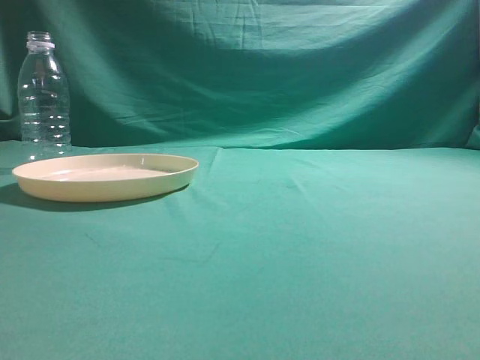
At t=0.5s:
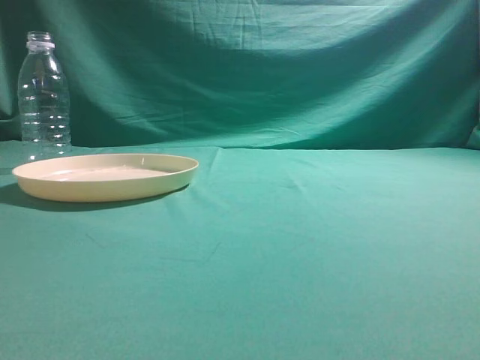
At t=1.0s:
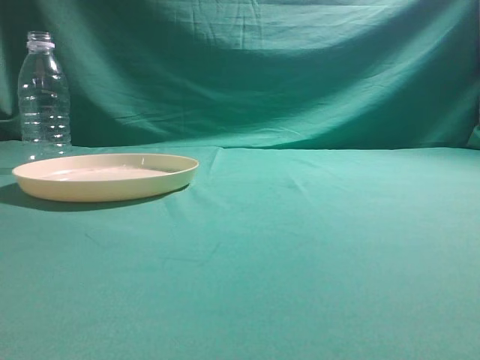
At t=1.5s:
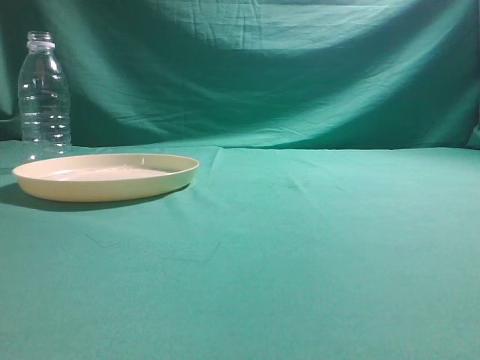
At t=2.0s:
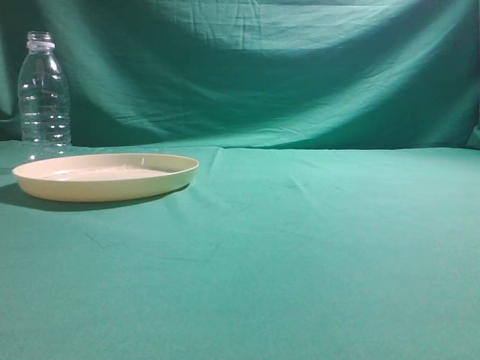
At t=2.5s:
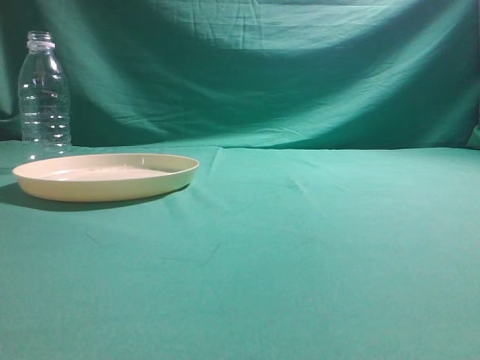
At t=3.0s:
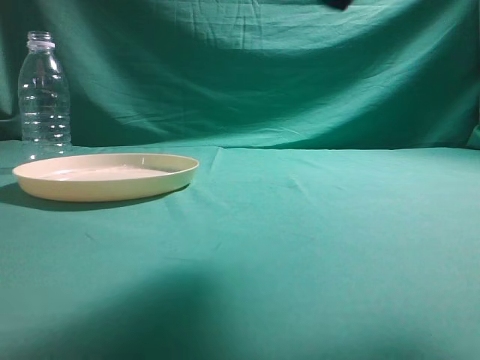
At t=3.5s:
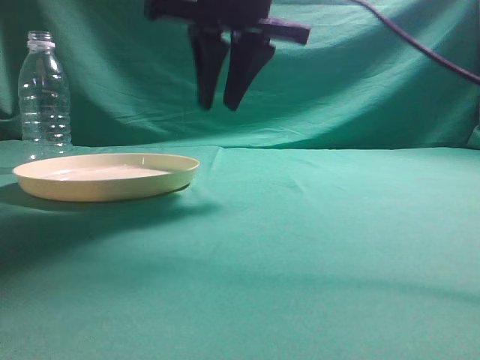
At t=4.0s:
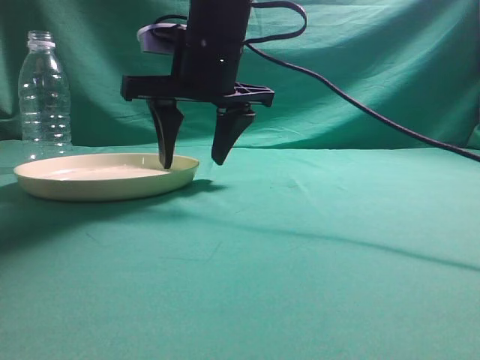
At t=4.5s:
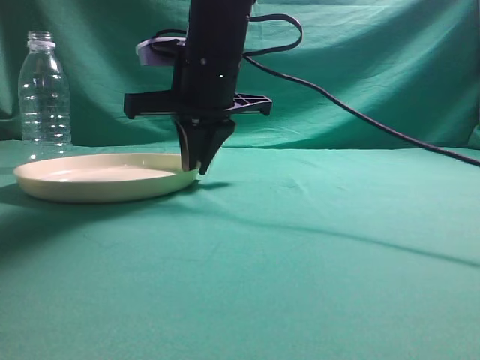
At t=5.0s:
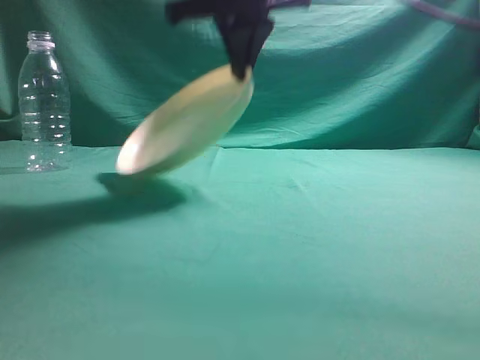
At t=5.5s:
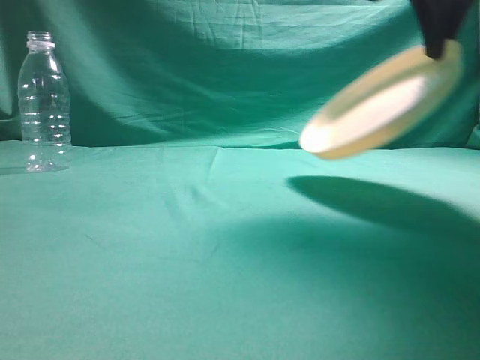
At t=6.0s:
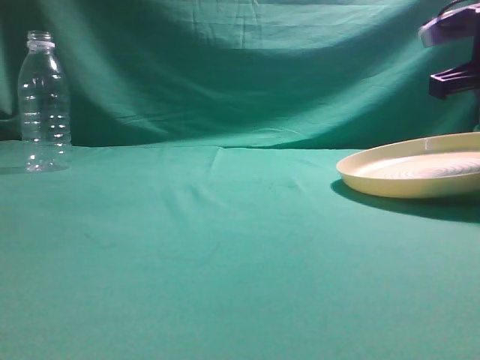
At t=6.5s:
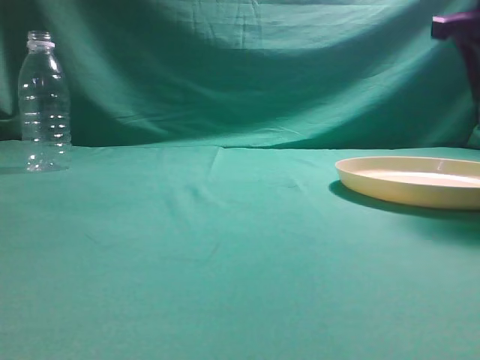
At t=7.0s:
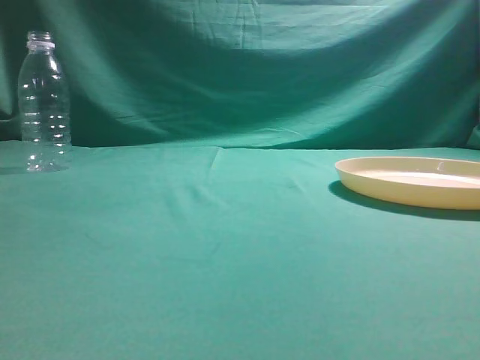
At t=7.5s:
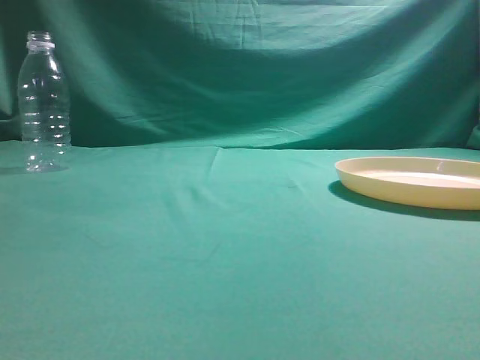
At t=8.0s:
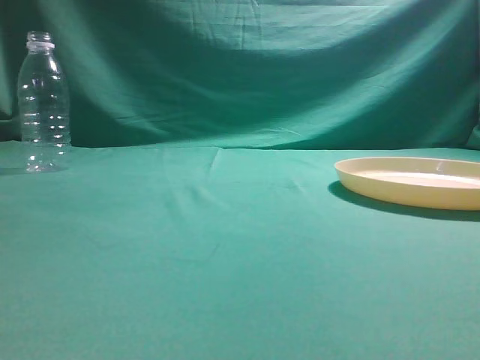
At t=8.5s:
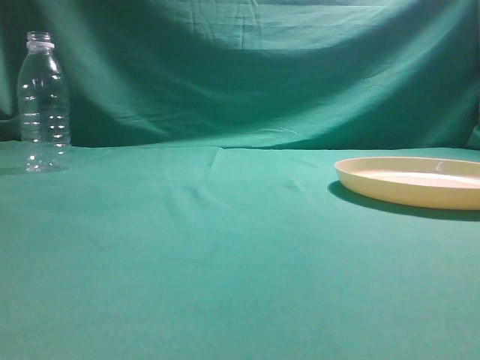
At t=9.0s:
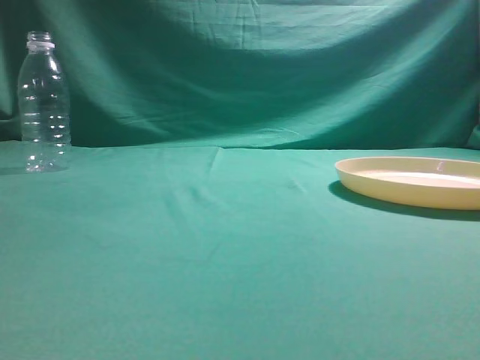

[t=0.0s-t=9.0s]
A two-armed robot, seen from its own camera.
Step, t=0.0s to t=5.0s: Pick the container that can hold fruits.
Step, t=5.5s to t=6.5s: Move the picked object to the right side of the table.
t=2.0s to t=4.5s: The right gripper goes about 40 cm forward and to the left, and opens, then closes again.
t=4.5s to t=7.0s: The right gripper travels to the right, upward and backward by about 35 cm, and opens, then closes once more.
